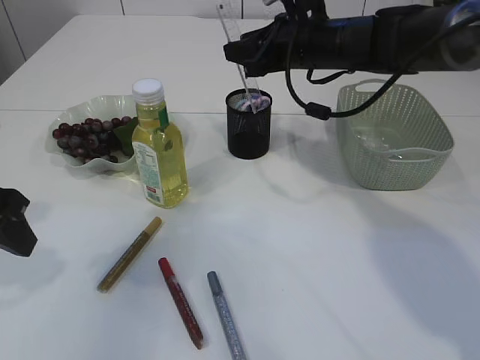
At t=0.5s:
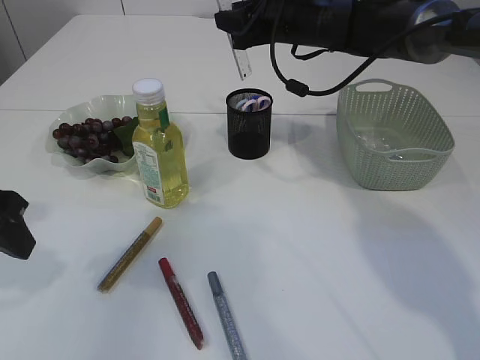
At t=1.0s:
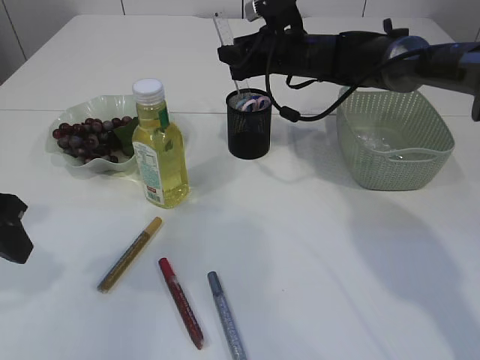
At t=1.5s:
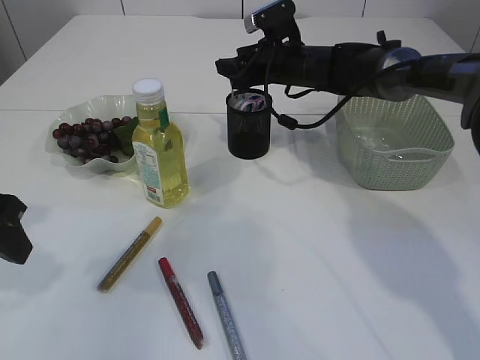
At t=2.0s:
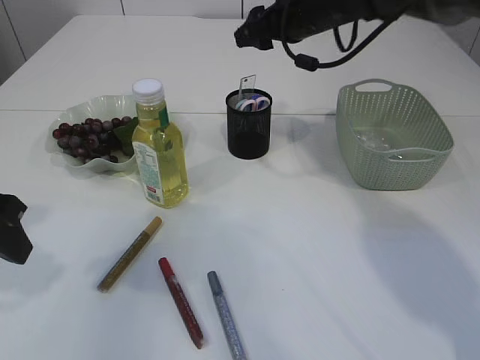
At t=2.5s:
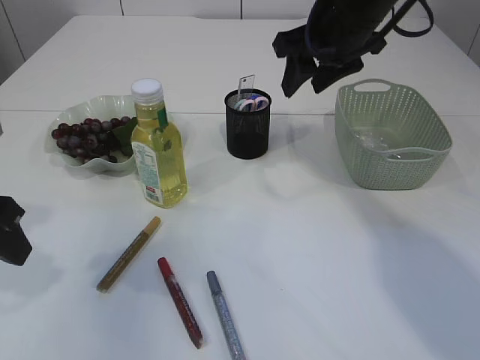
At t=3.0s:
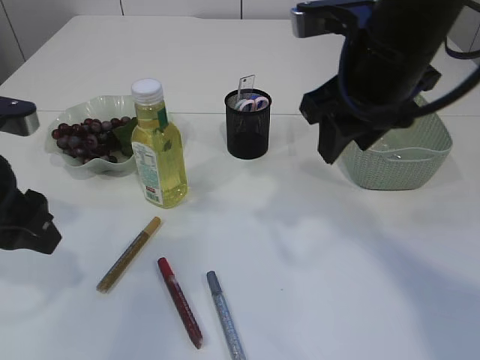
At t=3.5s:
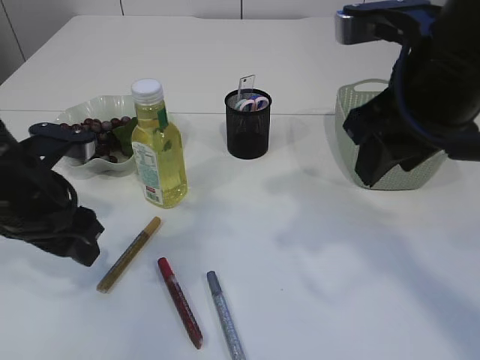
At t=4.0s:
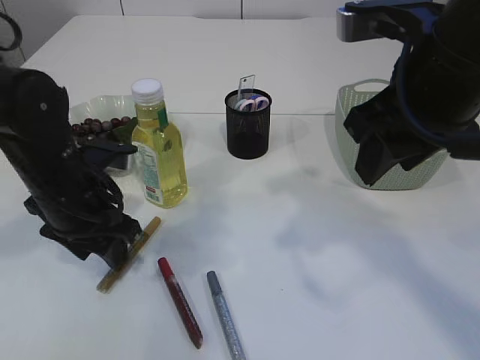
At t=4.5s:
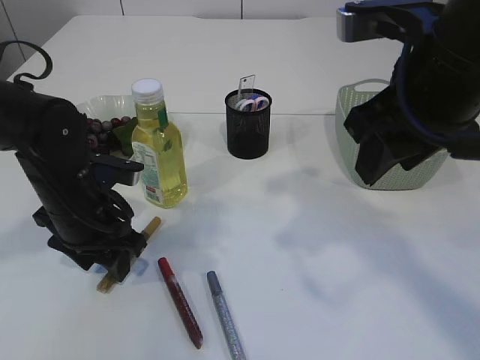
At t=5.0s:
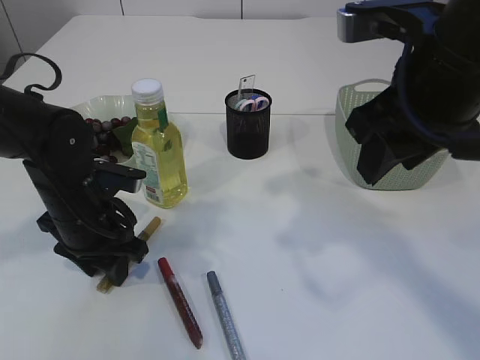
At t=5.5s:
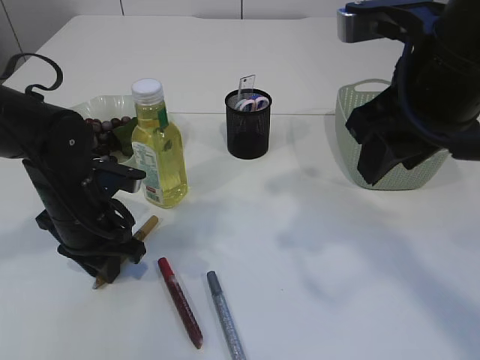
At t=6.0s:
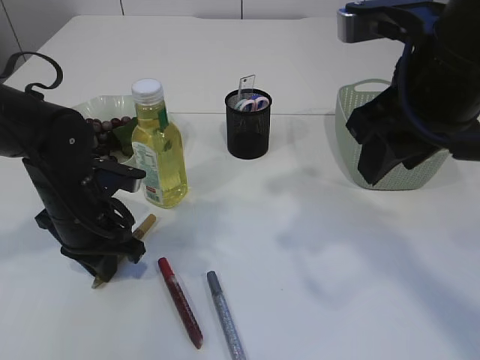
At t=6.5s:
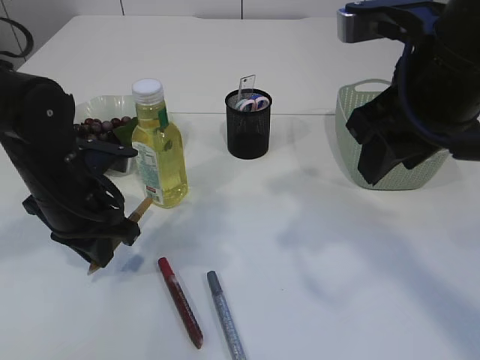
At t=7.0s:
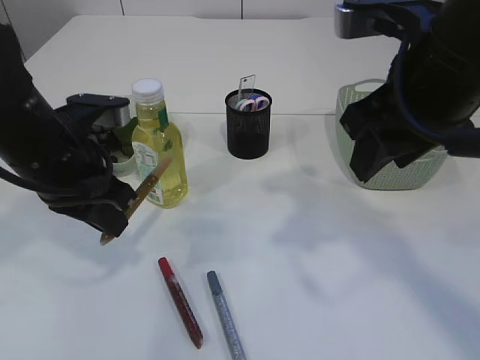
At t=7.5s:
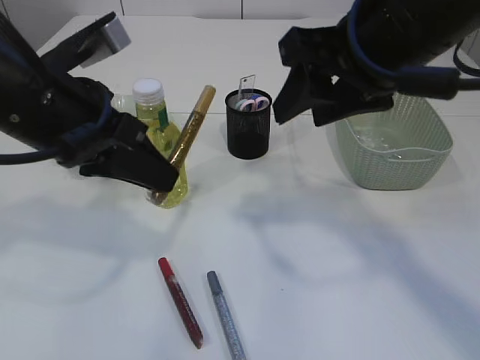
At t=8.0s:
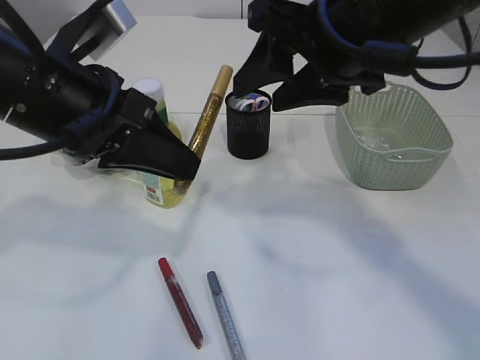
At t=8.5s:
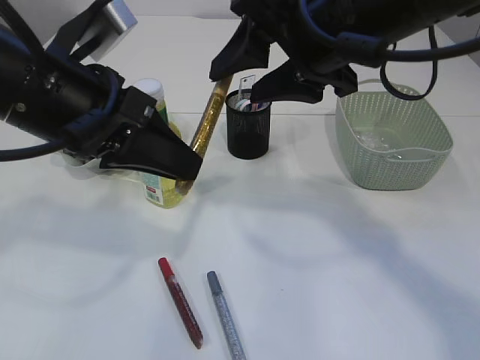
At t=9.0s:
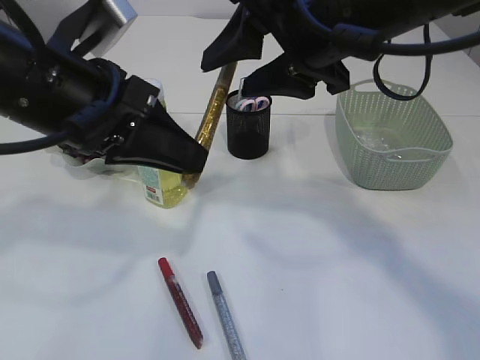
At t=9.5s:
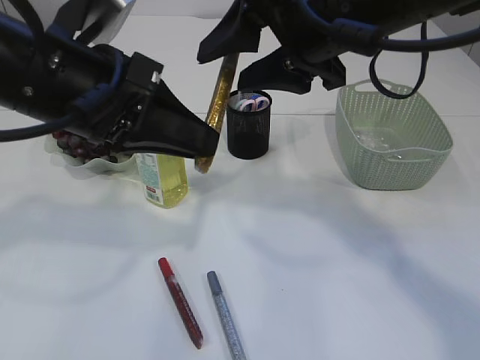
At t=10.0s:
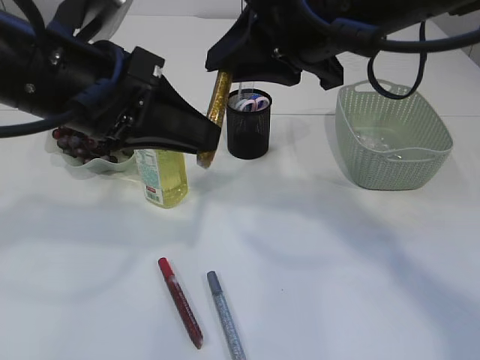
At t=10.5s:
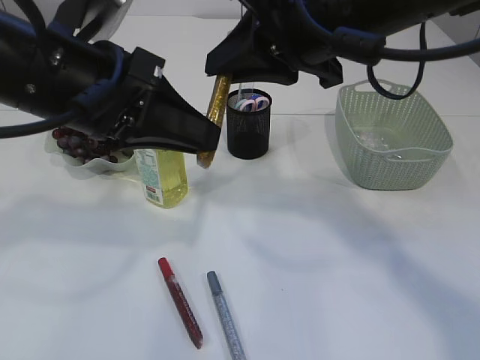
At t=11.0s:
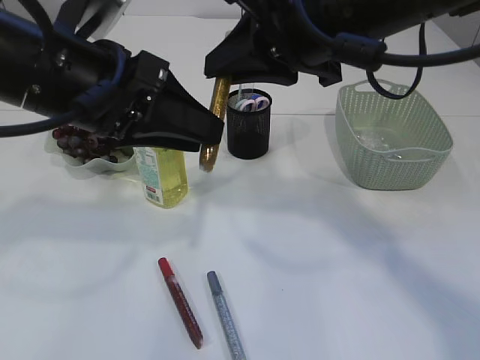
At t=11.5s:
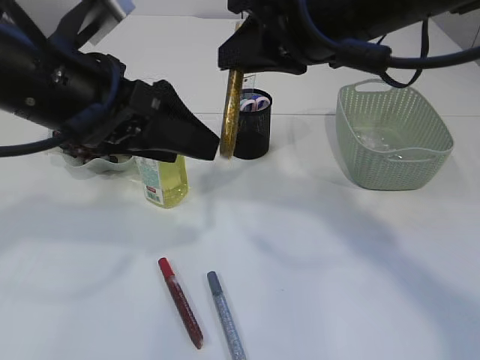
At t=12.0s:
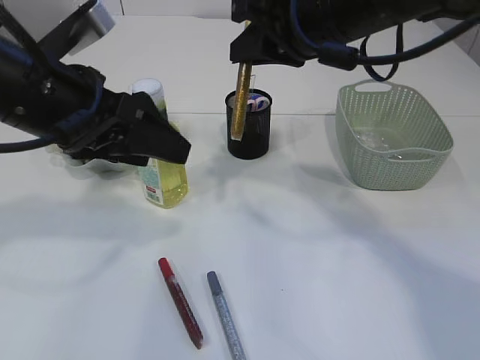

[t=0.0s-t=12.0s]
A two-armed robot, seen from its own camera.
Step, t=0.0s to t=1.5s: Place the ruler into the pen holder.
Step, t=2.0s to t=7.0s: pick up the yellow glue.
Step, t=7.5s to t=12.0s: Hand over the yellow glue.
t=0.0s to t=2.0s: The right gripper reaches roughly 5 cm downward, then returns.
t=2.0s to t=4.0s: The right gripper goes some 25 cm backward. The left gripper travels to the right, downward and forward by roughly 15 cm.
t=4.0s to t=6.0s: The left gripper closes its fingers.
t=6.0s to t=8.0s: The right gripper changes place by roughly 5 cm. Meanwhile the left gripper shifts some 15 cm upward.
t=8.0s to t=10.0s: The right gripper closes up.
t=10.0s to t=12.0s: The right gripper heads forward, covering roughly 5 cm; the left gripper opens.

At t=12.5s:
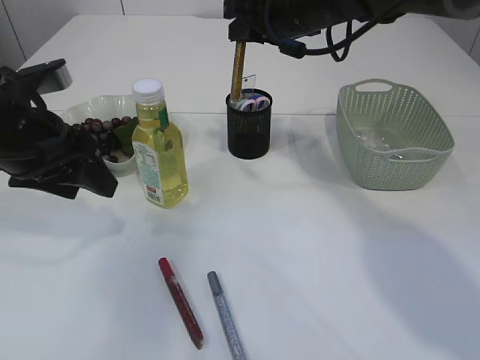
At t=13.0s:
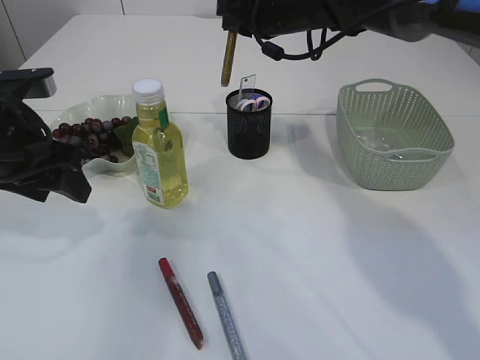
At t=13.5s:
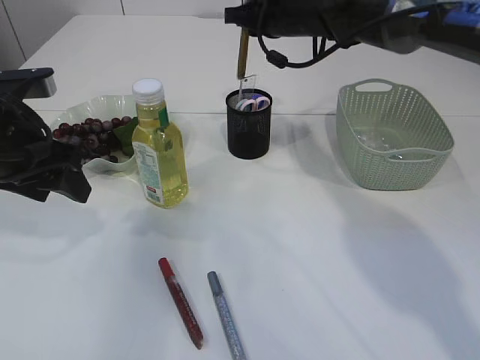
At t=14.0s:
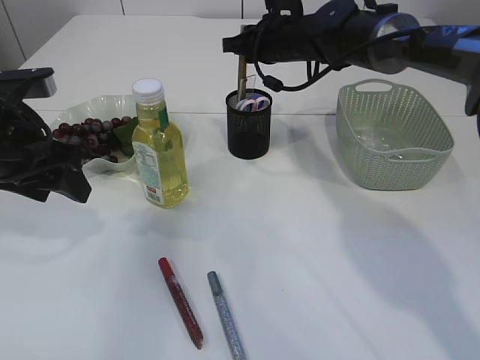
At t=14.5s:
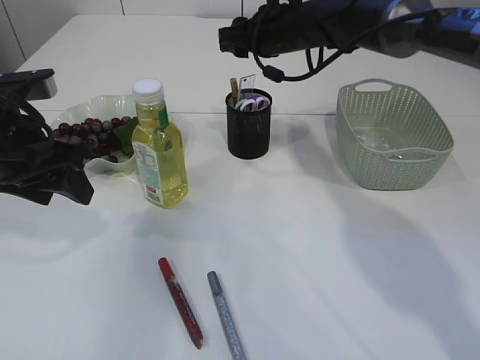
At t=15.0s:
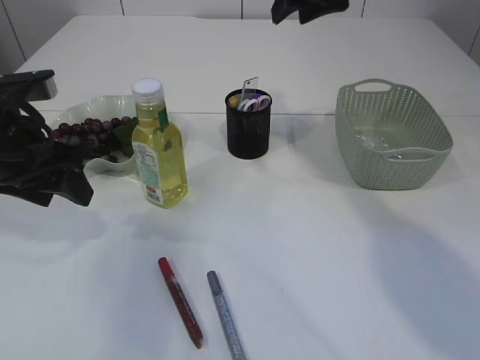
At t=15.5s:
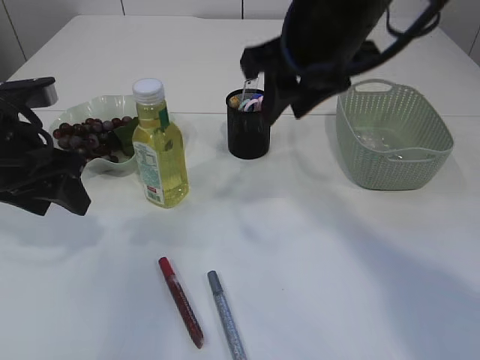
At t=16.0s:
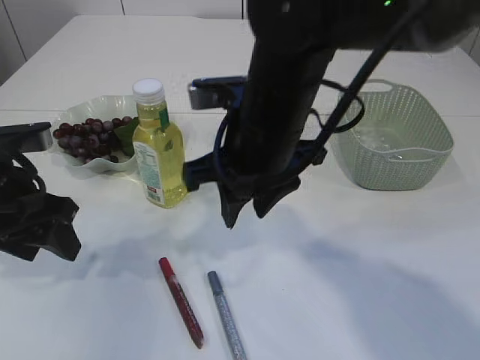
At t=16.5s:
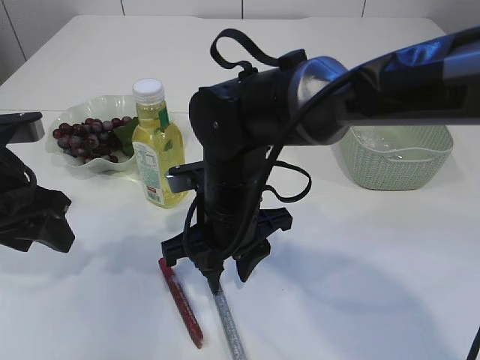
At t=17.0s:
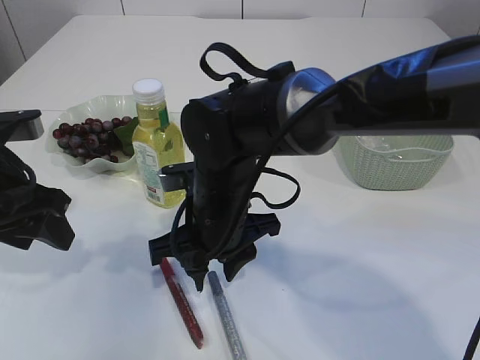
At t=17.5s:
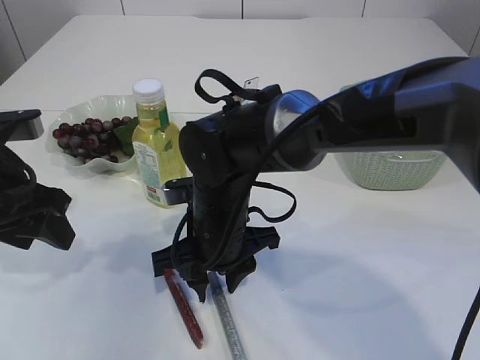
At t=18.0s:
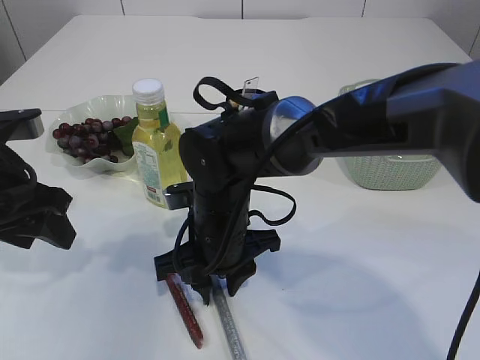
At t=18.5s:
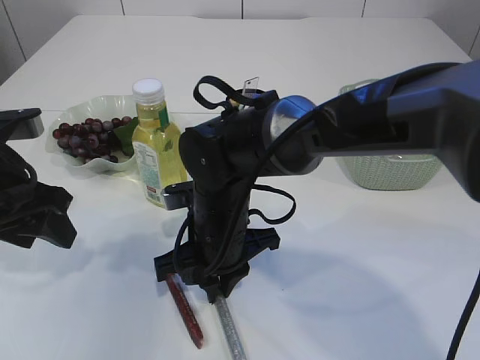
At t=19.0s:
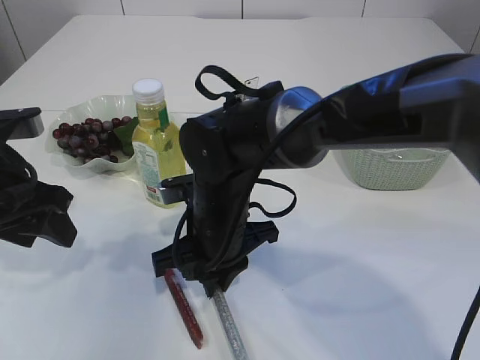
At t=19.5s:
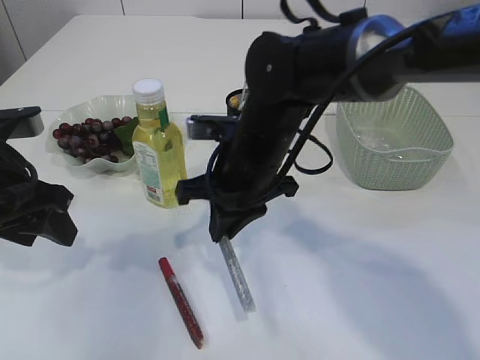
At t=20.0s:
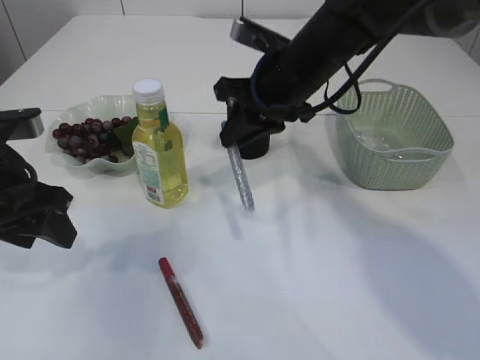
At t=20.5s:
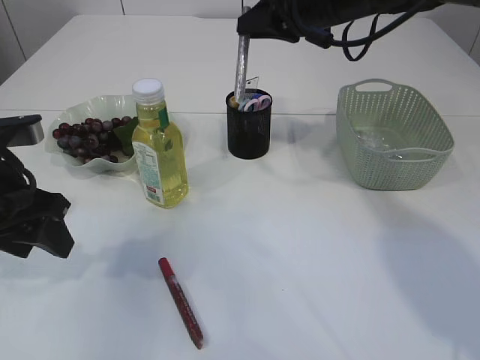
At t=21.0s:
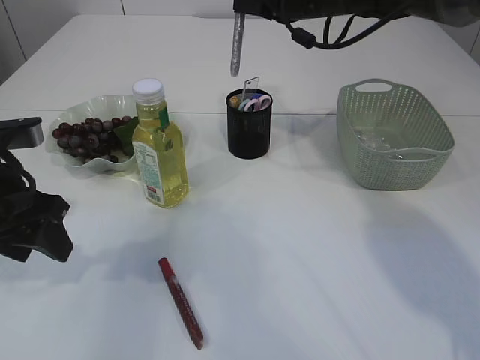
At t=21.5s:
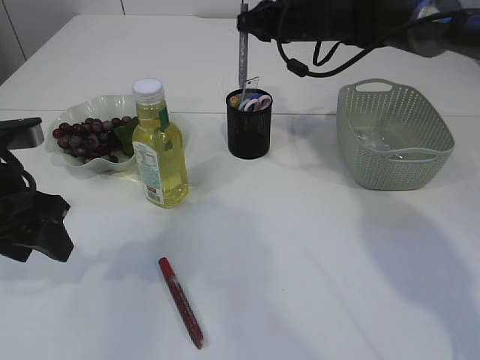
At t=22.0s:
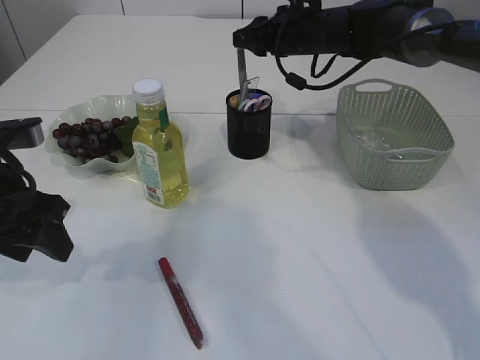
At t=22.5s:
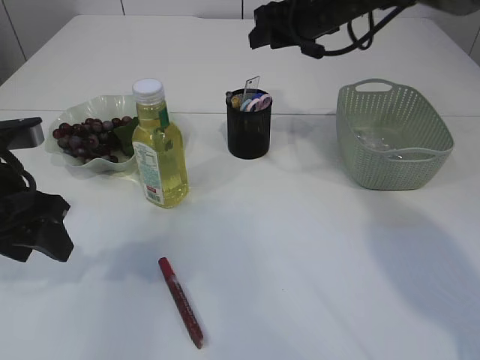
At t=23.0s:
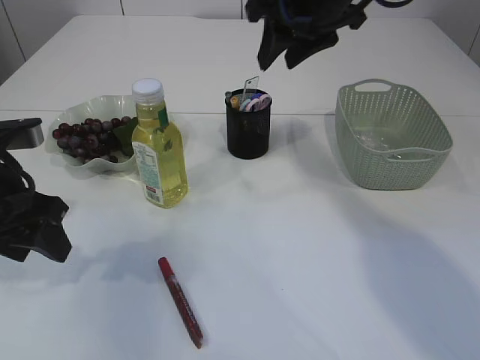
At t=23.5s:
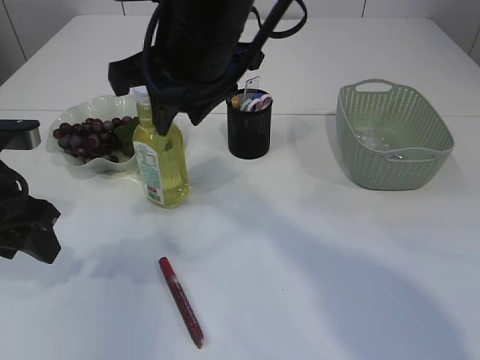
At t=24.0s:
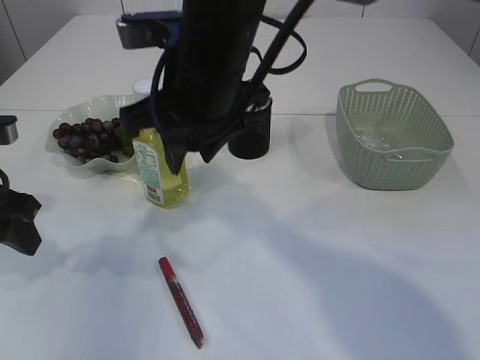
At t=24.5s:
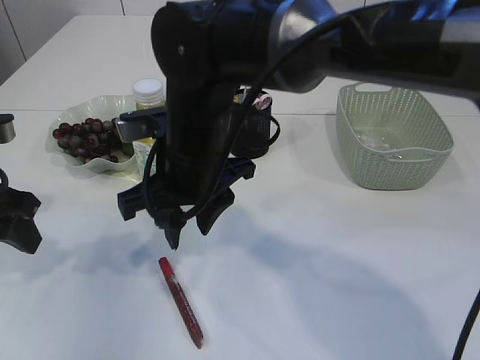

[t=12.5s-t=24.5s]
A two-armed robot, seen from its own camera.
Step, t=12.5s to t=14.5s: place the yellow glue into the pen holder.
Step, t=15.0s to t=19.5s: pick up the silver glue.
Step, t=20.0s to t=23.0s: place the silver glue into the pen holder.
t=12.5s to t=14.5s: The right gripper is displaced forward by roughly 5 cm, and opens its fingers.
t=14.5s to t=16.5s: The right gripper travels backward and to the left by approximately 25 cm.
t=16.5s to t=18.5s: The right gripper closes.
t=18.5s to t=20.5s: The right gripper travels upward, forward and to the right by about 30 cm.
t=20.5s to t=22.5s: The right gripper moves forward, some 5 cm, and opens its fingers.
t=22.5s to t=24.5s: The right gripper shifts some 25 cm backward and to the left.

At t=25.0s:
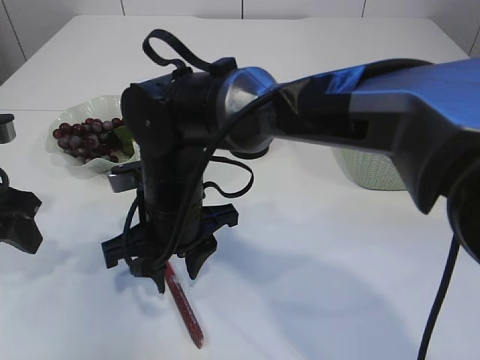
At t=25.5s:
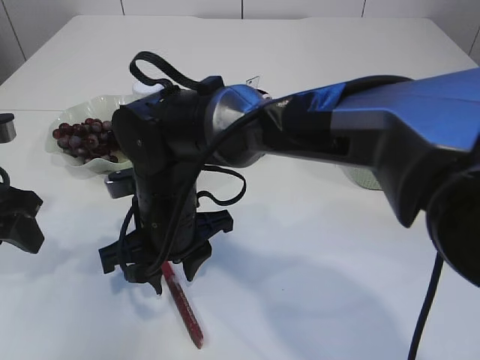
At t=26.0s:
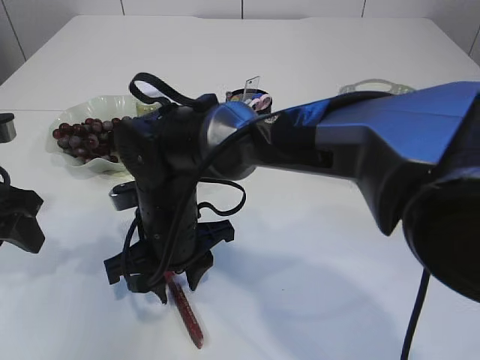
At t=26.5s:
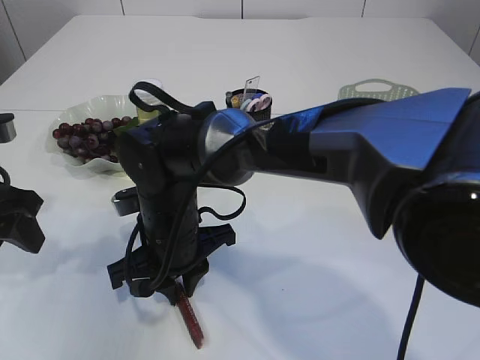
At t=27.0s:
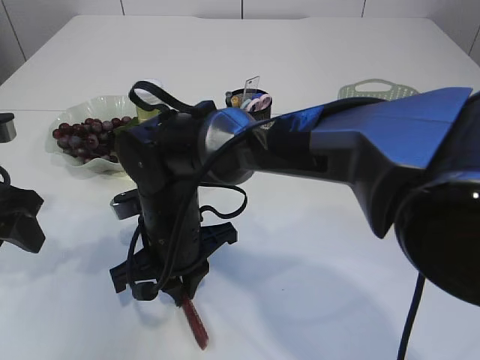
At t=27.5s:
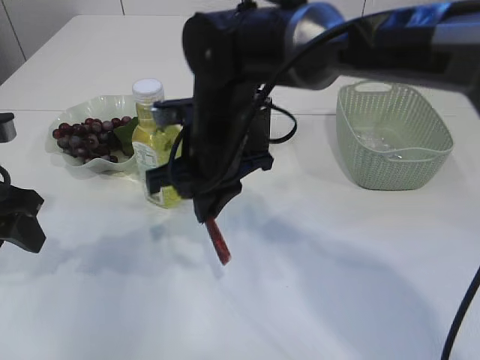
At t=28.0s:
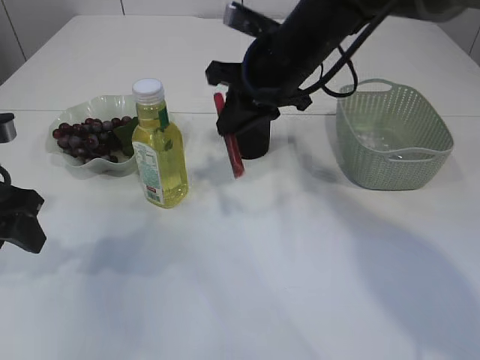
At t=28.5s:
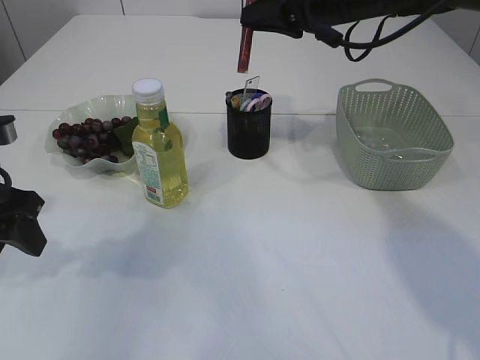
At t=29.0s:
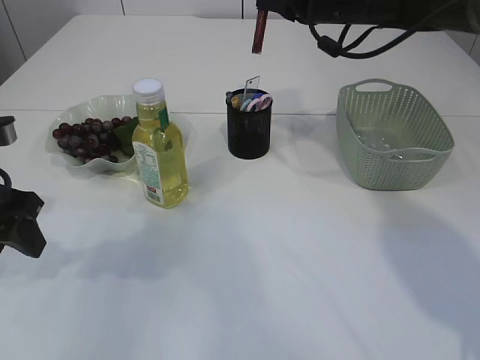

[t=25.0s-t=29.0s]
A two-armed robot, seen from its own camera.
Step, t=25.0s to t=27.0s: pick up the red glue.
t=25.0s to t=27.0s: The right gripper closes up.
t=27.0s to t=29.0s: The right gripper travels to the right, forward and upward by about 35 cm.
